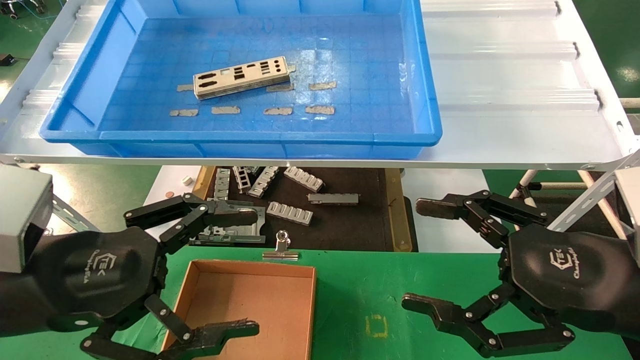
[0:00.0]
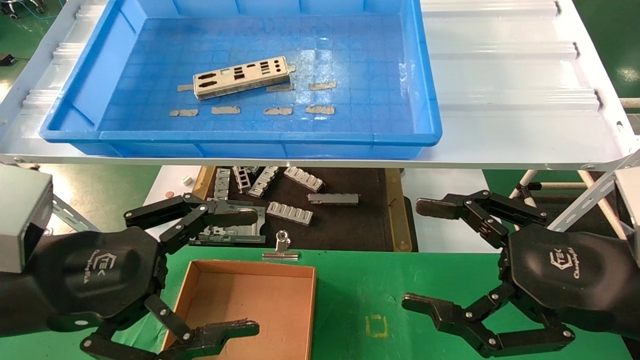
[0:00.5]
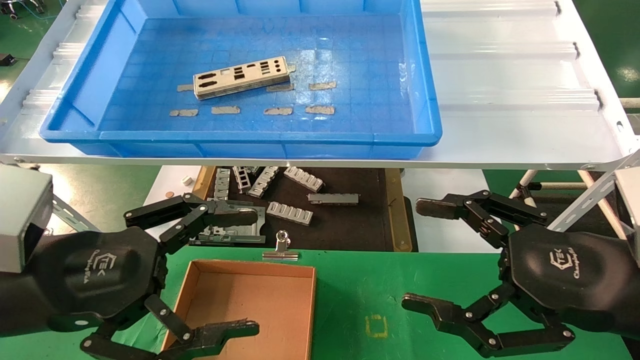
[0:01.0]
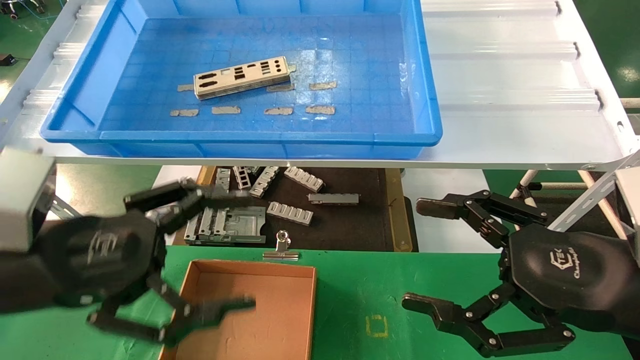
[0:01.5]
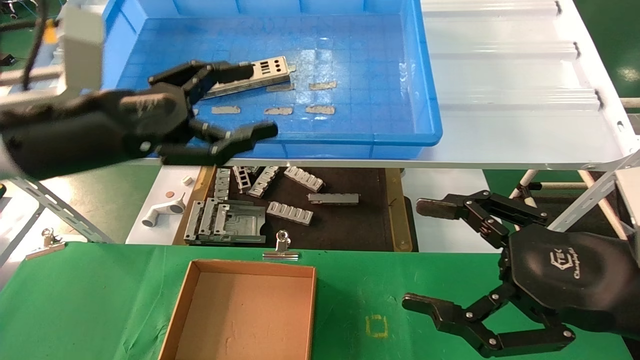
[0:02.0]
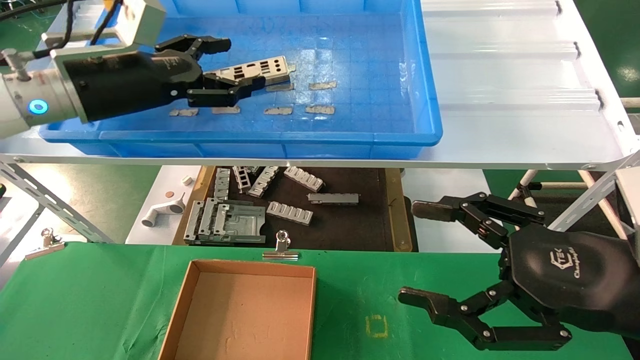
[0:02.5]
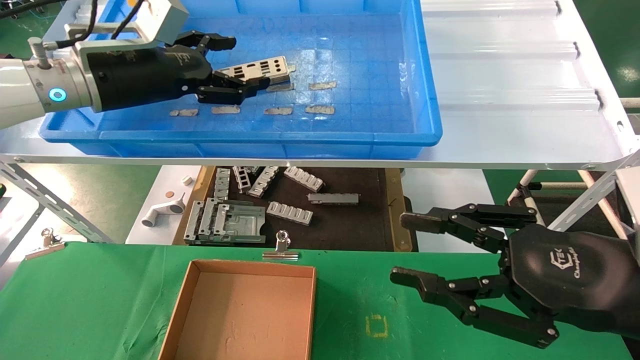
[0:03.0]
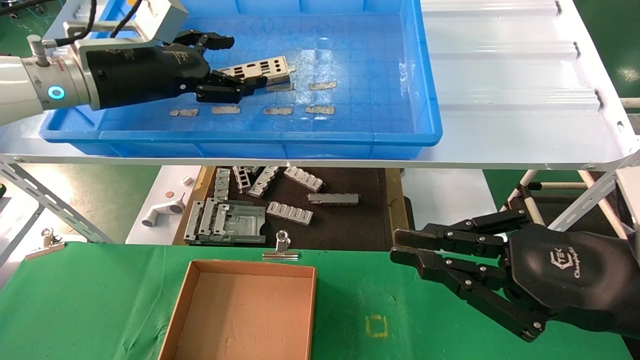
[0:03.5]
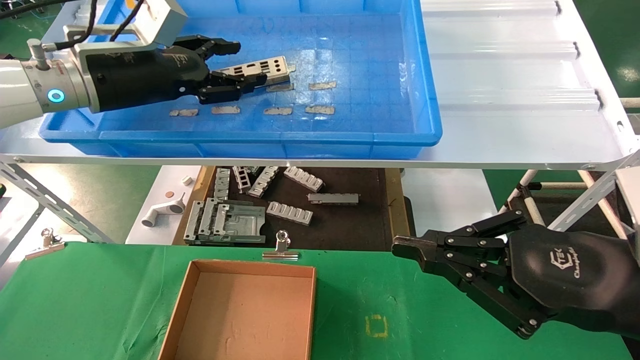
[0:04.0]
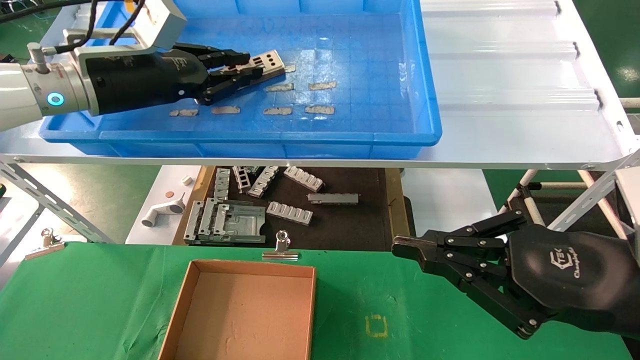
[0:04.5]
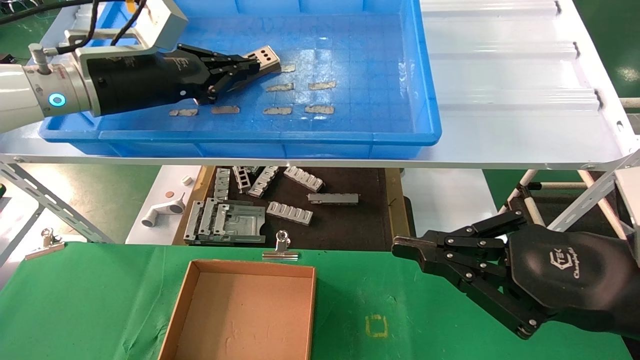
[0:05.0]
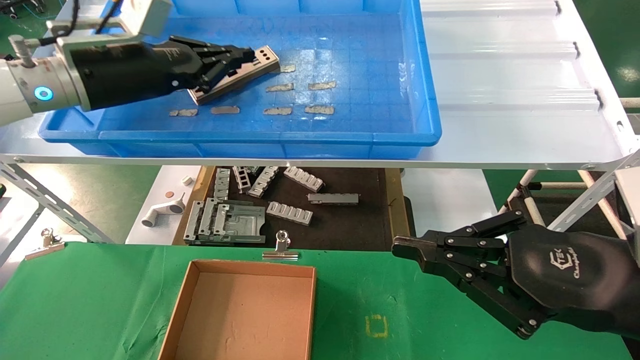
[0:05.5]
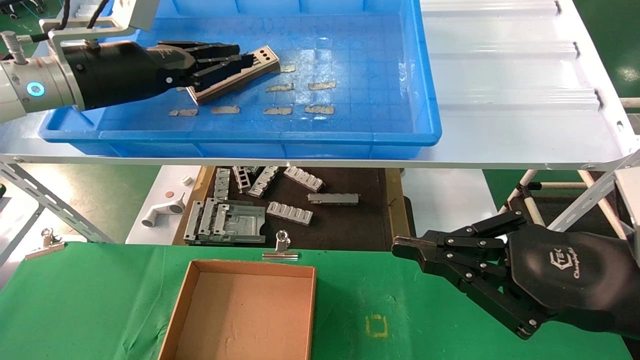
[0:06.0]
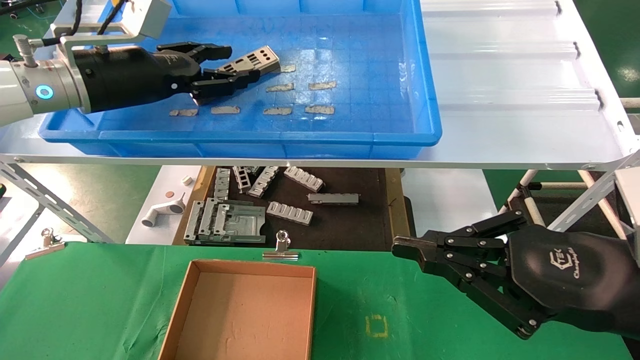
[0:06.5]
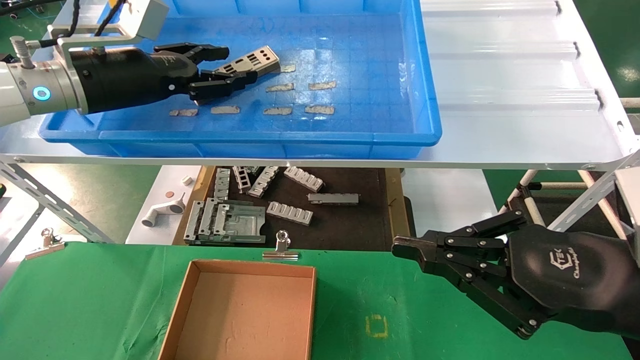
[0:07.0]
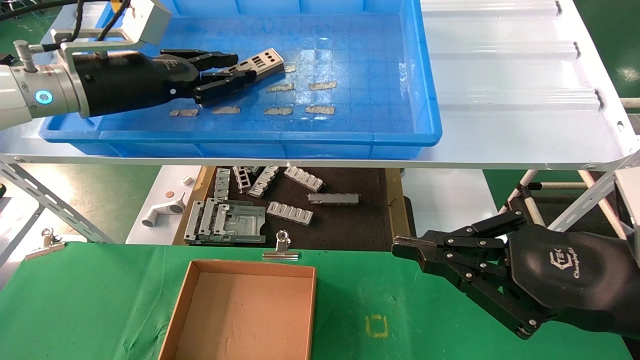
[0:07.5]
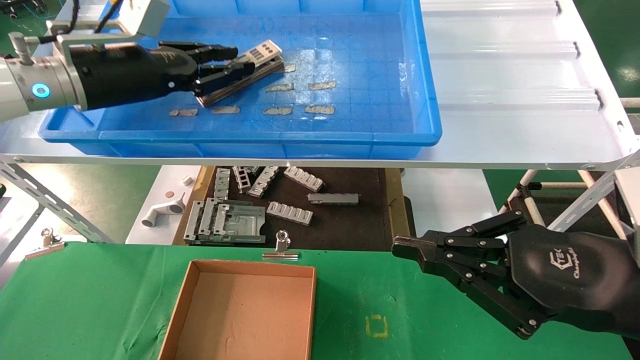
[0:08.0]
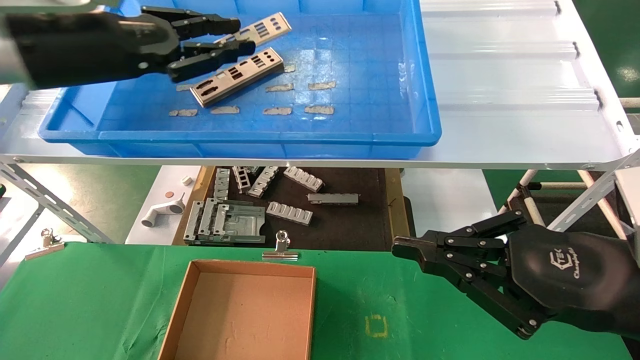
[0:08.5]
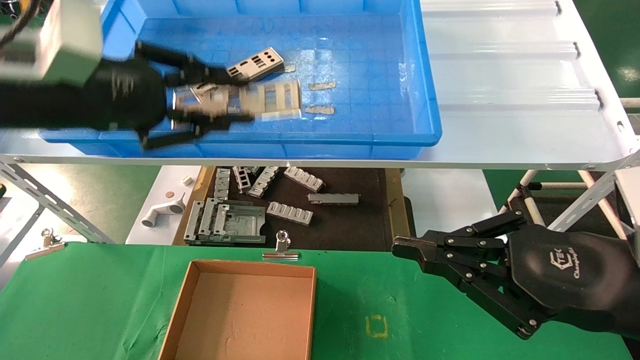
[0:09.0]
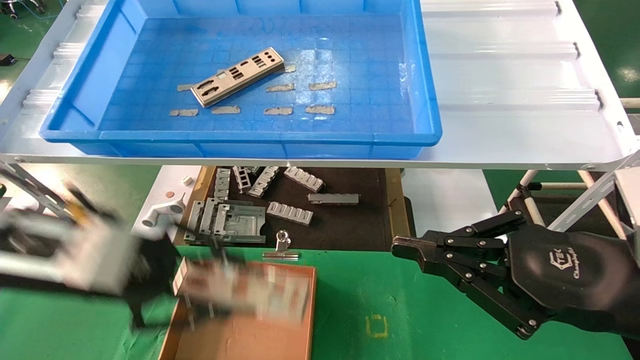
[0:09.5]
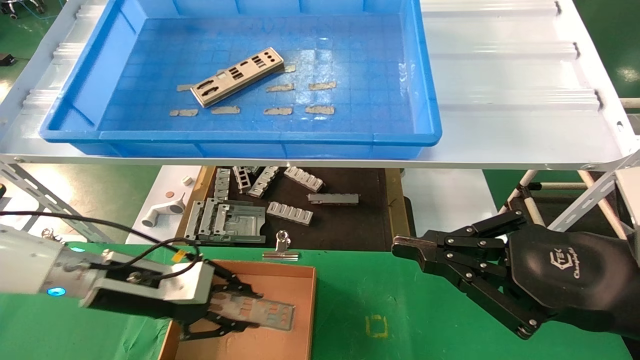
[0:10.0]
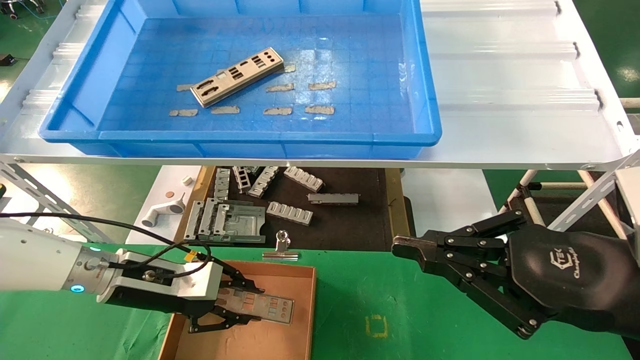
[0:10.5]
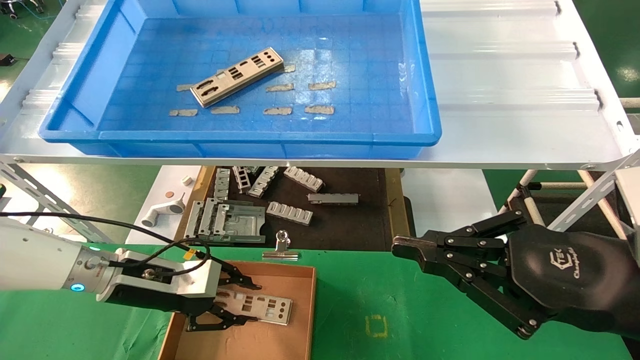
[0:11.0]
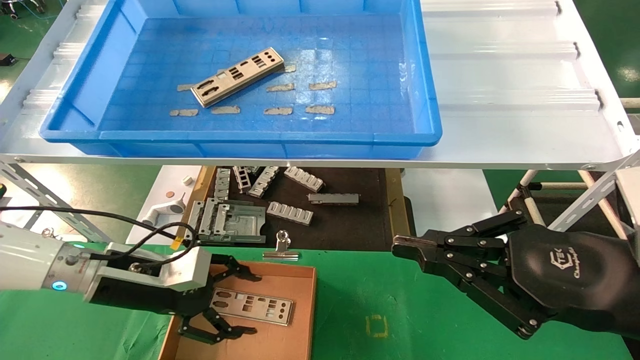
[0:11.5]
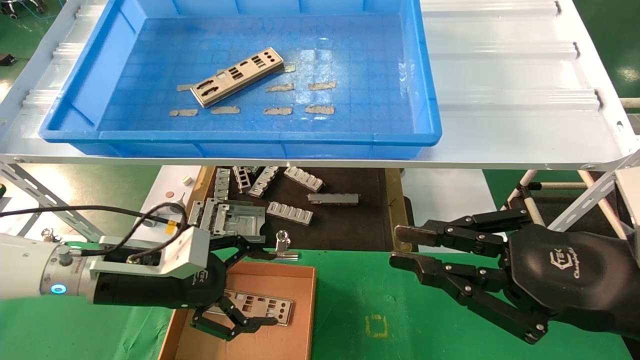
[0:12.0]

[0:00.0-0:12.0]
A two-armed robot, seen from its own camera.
Task of the whole recording: pick up the parts on the tray and put them in the cardboard box.
Step, 0:02.0 to 0:07.5: Pick up the IO bracket from the container box.
Step, 0:08.0 to 0:11.0: Place the IO bracket into the ingredient slot.
0:00.0 to 0:02.0: The left gripper moves forward and upward, approximately 15 cm.
0:02.0 to 0:04.0: The left gripper heads forward and upward, covering about 10 cm. The right gripper closes.
0:04.0 to 0:06.0: The left gripper closes.
0:06.0 to 0:08.0: The left gripper opens and closes again.
0:08.0 to 0:10.0: The left gripper goes some 25 cm downward.
0:10.0 to 0:12.0: The left gripper opens up.

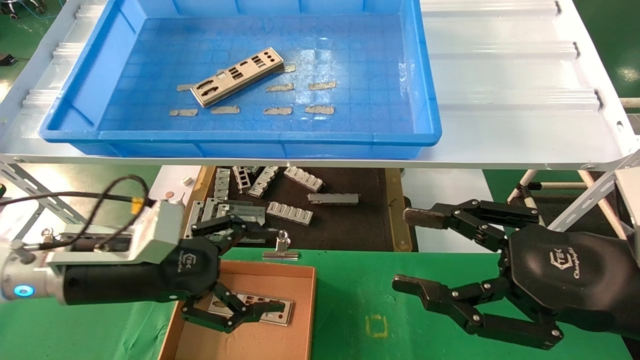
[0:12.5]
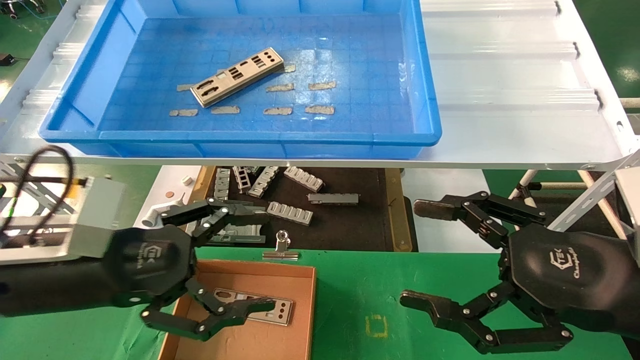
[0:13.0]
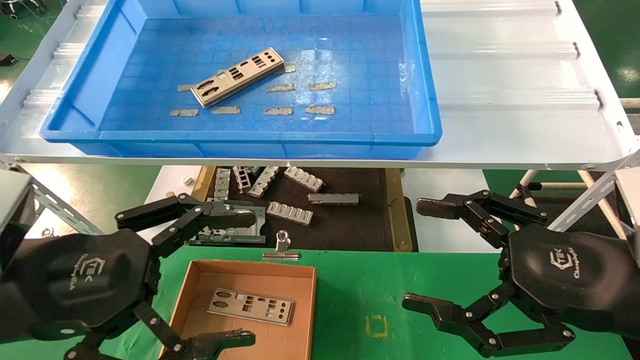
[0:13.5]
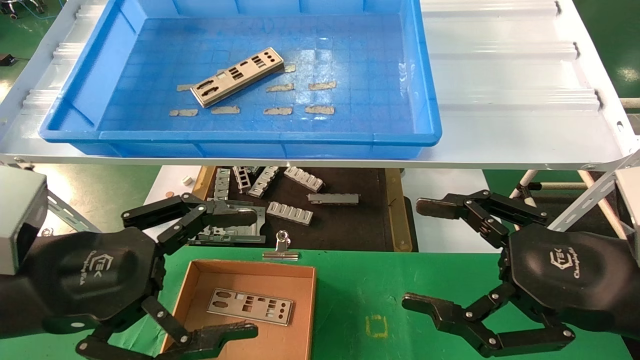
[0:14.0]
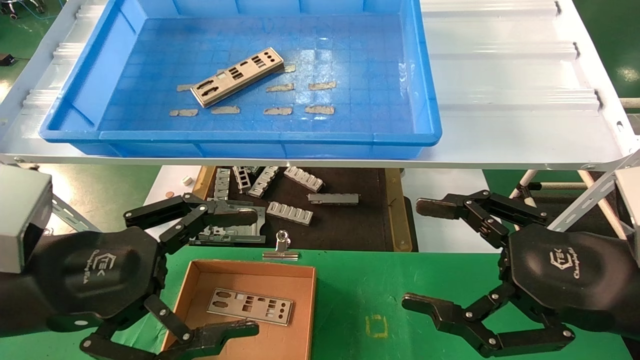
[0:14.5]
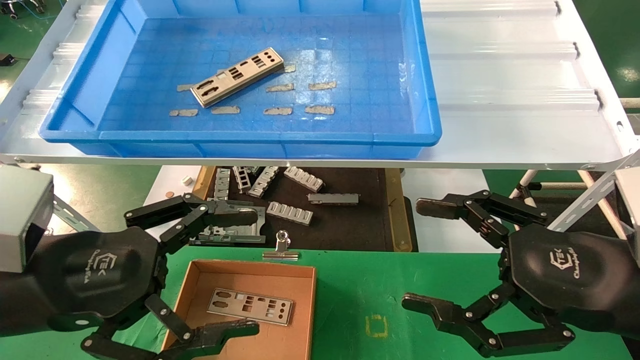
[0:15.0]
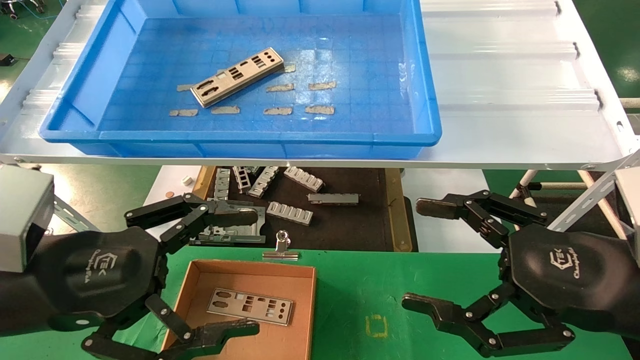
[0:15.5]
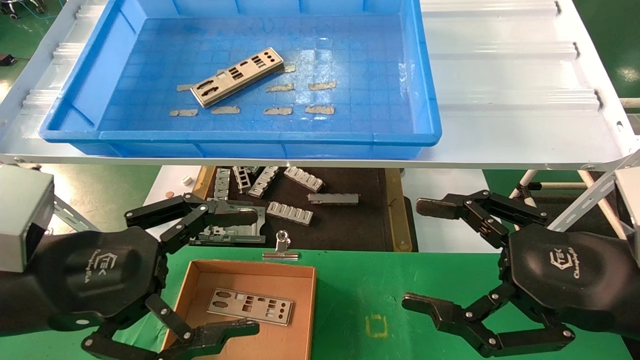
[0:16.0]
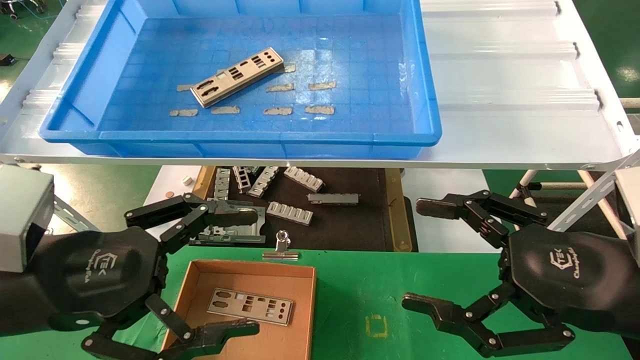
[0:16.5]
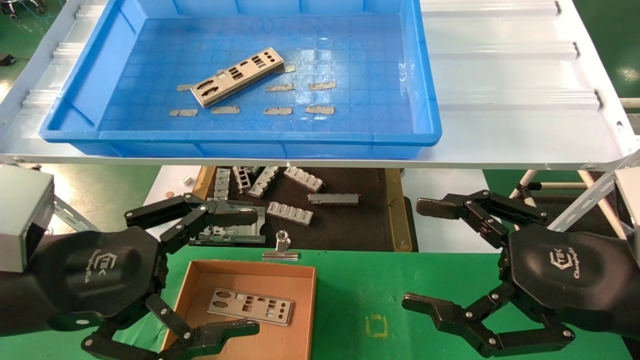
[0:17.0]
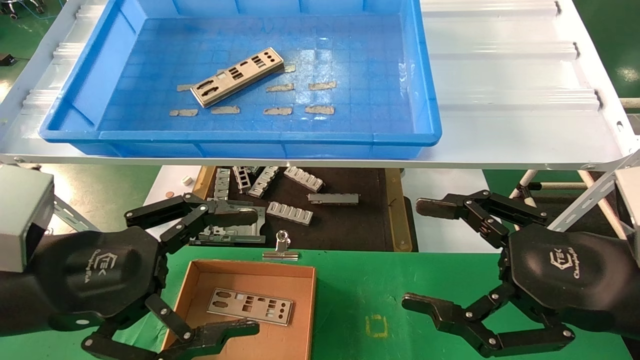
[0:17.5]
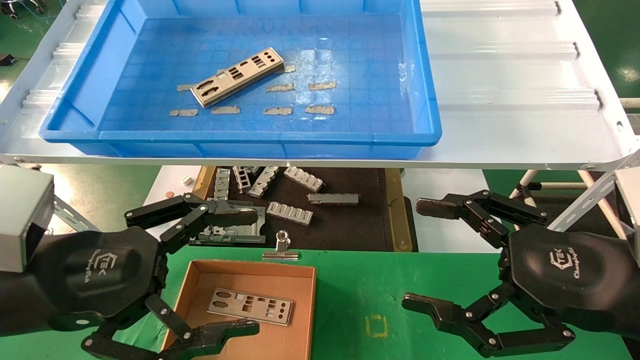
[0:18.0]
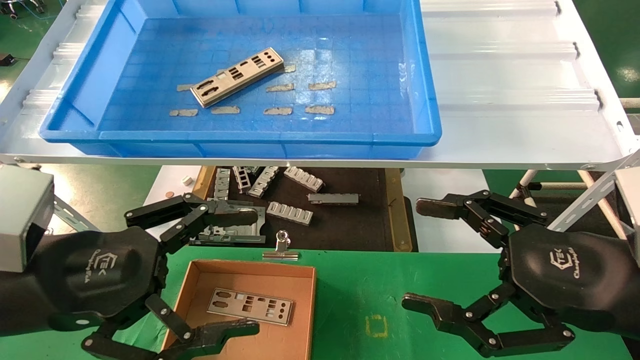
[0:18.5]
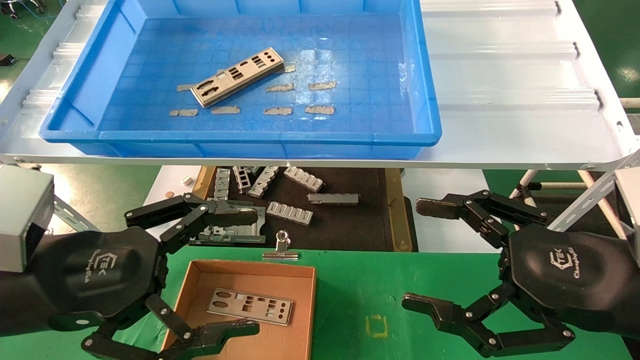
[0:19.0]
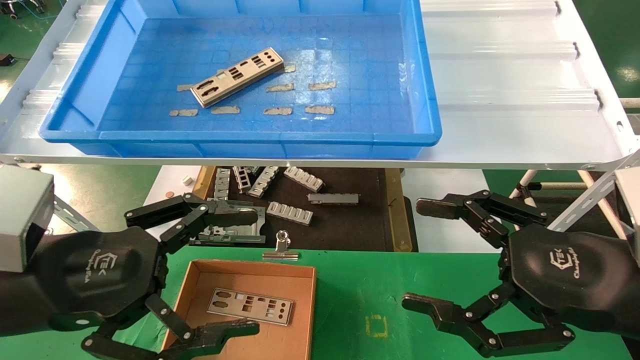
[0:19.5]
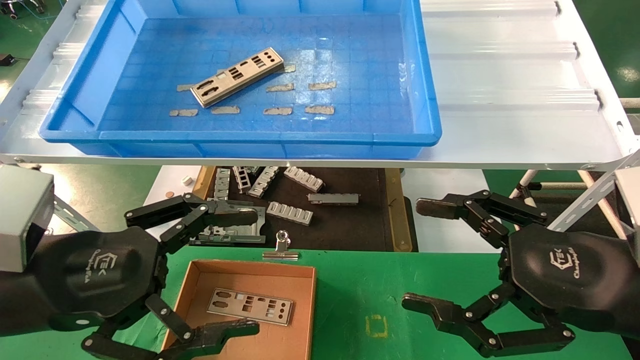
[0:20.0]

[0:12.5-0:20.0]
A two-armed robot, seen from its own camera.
Task of the whole recording: pick up the parts on the tray and put them in the cardboard box.
0:12.5 to 0:14.5: The left gripper heads backward and upward, covering approximately 10 cm. The right gripper opens.
0:14.5 to 0:20.0: Both grippers stay put.
